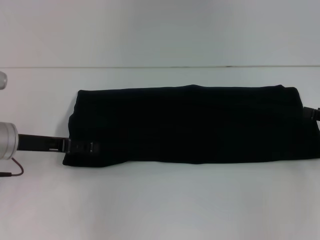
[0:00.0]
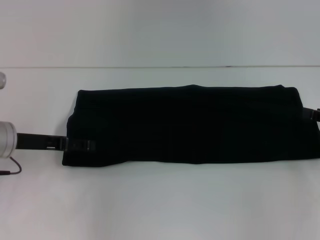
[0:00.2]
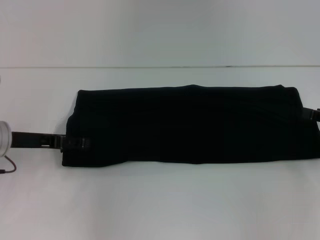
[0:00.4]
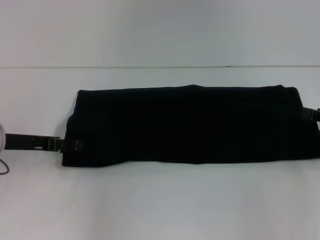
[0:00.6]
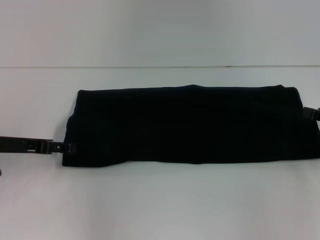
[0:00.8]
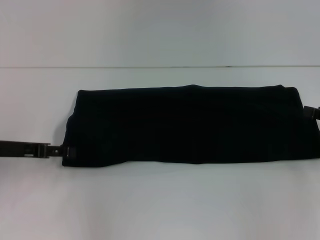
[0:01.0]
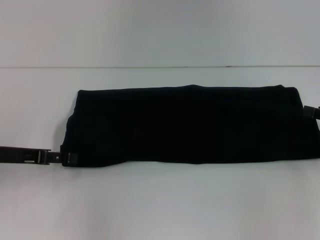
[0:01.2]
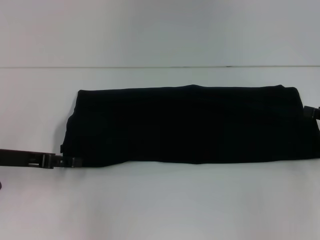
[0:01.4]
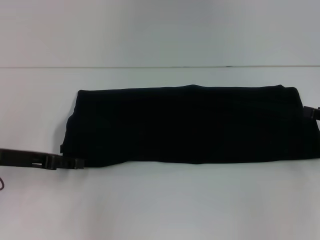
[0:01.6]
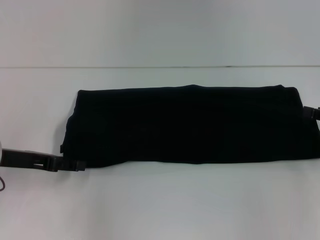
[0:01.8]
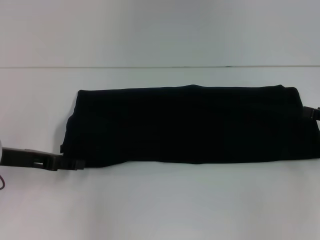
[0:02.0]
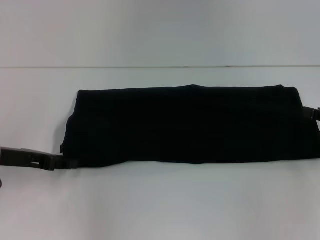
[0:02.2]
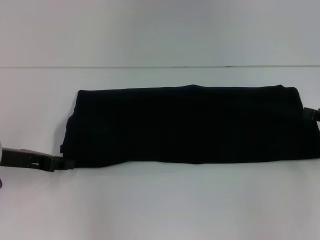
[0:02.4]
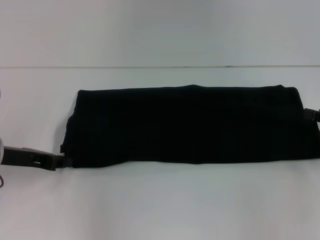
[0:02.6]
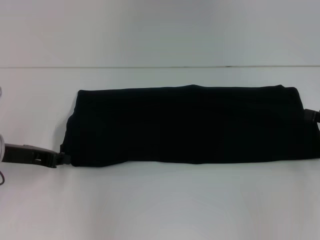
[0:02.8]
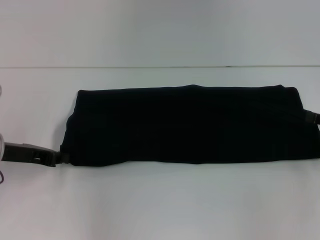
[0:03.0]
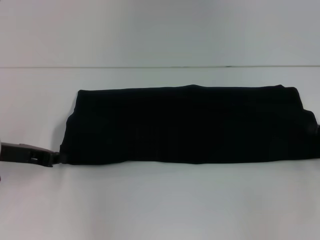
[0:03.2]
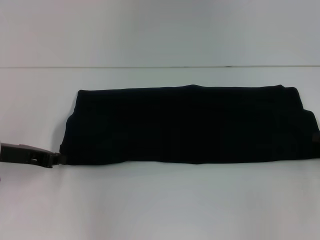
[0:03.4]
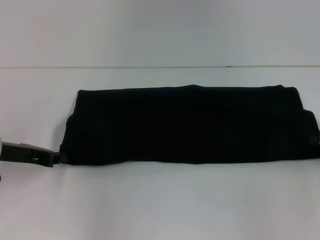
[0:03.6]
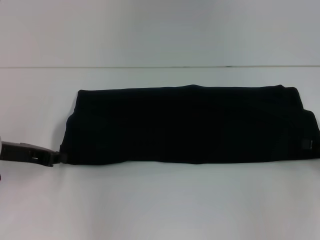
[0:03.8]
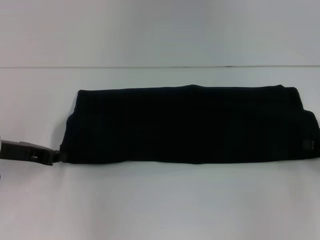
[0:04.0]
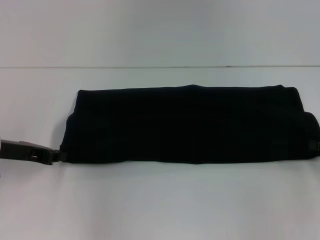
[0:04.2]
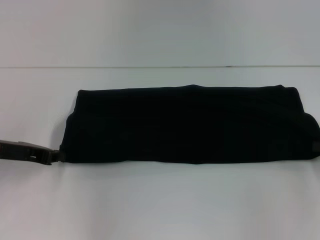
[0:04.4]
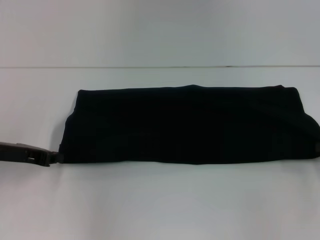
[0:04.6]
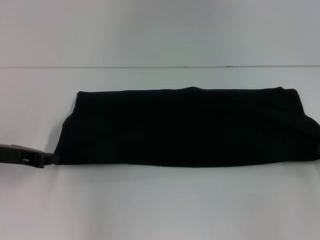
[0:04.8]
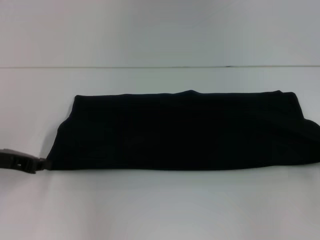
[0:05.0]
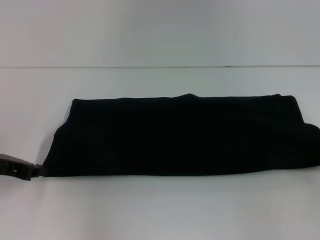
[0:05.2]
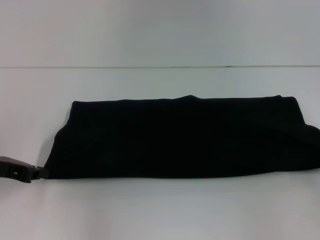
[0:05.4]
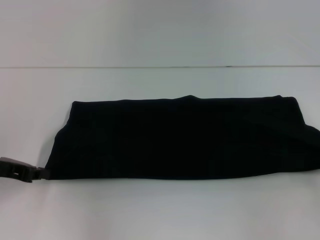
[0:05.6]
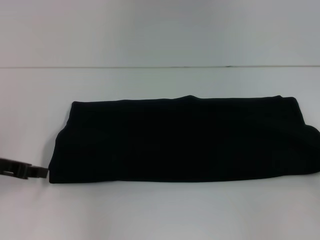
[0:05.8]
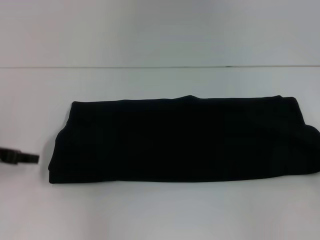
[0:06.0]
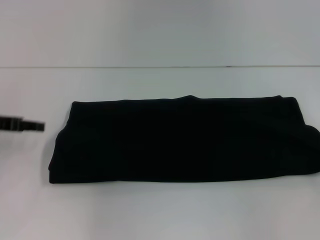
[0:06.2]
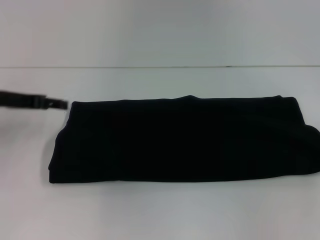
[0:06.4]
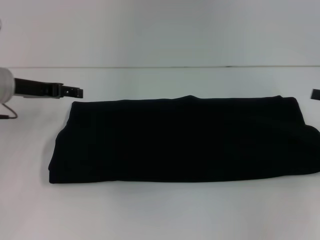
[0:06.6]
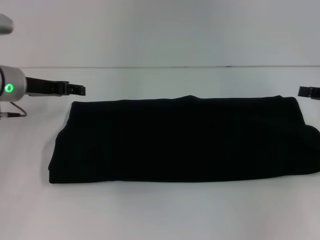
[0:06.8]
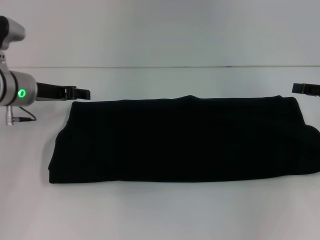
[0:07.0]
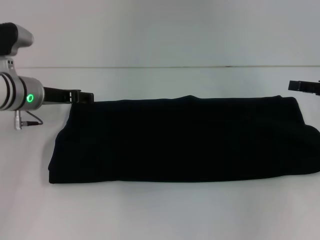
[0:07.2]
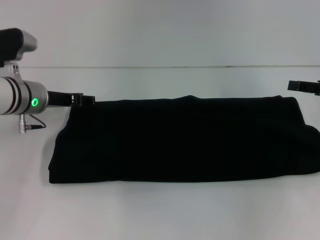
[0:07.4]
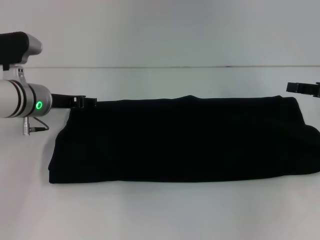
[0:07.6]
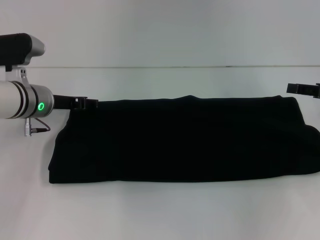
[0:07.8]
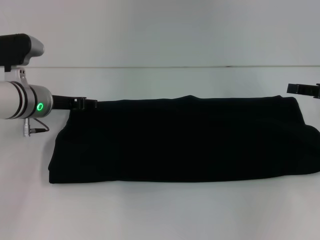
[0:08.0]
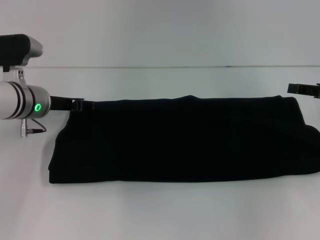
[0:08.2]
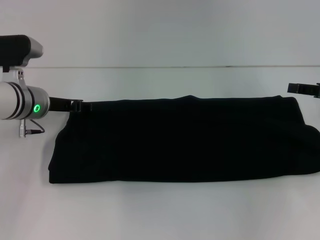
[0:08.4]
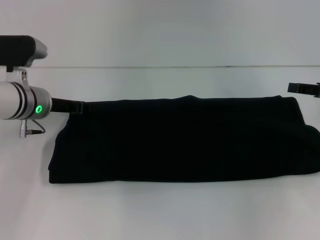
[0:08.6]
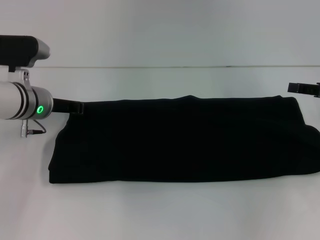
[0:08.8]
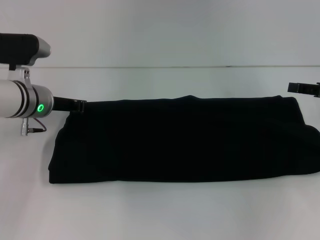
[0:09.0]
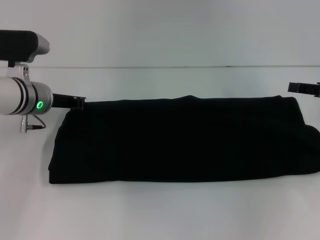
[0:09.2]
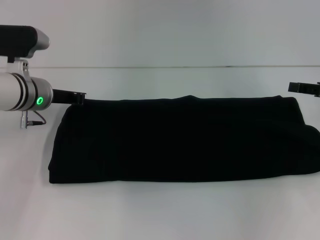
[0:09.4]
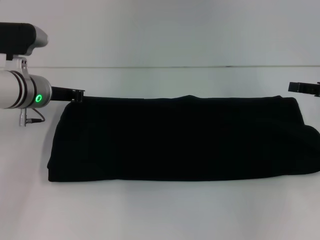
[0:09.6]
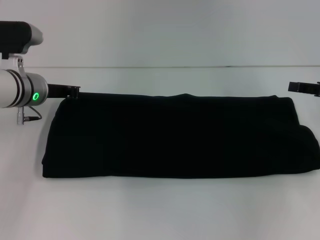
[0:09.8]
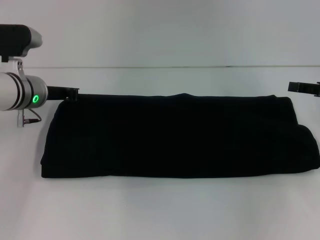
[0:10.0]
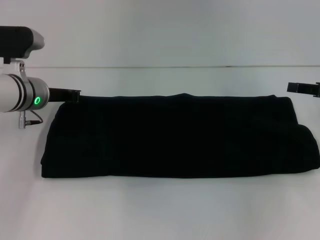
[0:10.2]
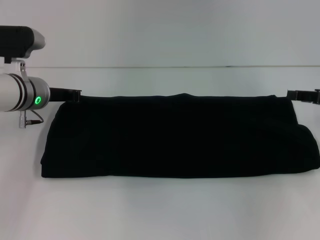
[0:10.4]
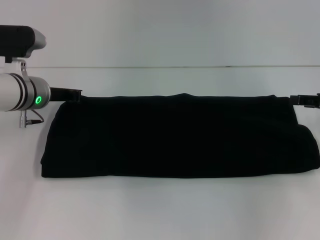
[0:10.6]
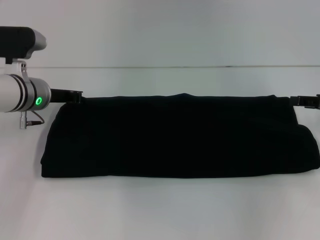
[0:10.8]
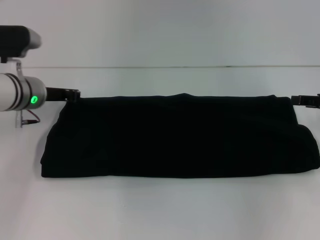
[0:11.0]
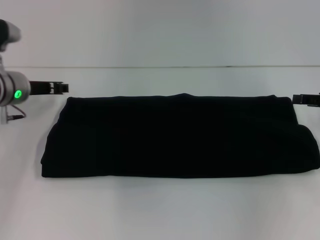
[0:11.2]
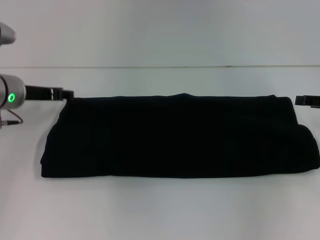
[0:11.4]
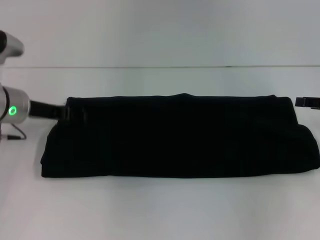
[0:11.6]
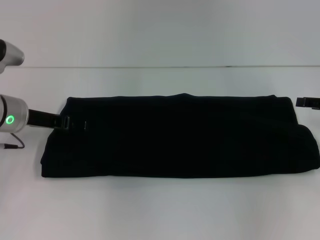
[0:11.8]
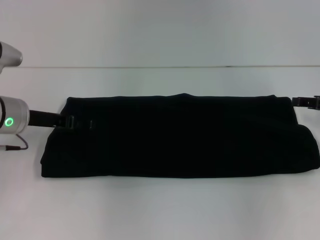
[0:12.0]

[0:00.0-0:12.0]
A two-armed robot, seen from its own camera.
0:00.0 to 0:01.6: There are only small adjustments of the grippers.
0:01.6 to 0:03.0: The left gripper closes.
0:04.4 to 0:06.0: The right gripper changes place by some 5 cm.
0:06.0 to 0:07.6: The left gripper moves to the right and forward, some 15 cm, and opens up. Meanwhile the right gripper heads forward and to the left, covering roughly 10 cm, and opens.
0:07.6 to 0:09.0: The left gripper closes.
0:09.0 to 0:10.4: The left gripper closes its fingers.
0:10.4 to 0:12.0: The left gripper is displaced backward by approximately 5 cm, and opens up.

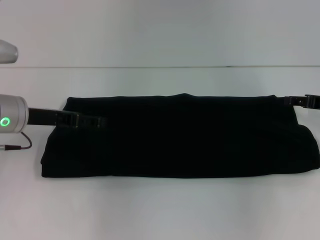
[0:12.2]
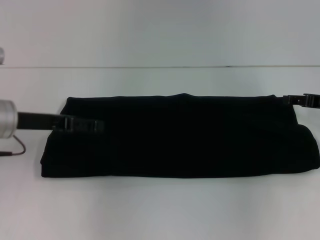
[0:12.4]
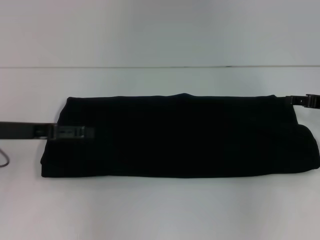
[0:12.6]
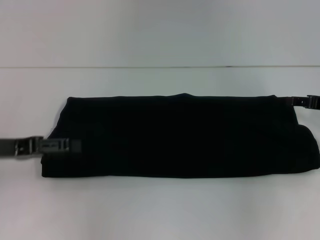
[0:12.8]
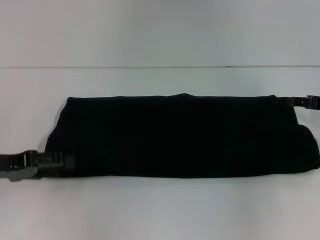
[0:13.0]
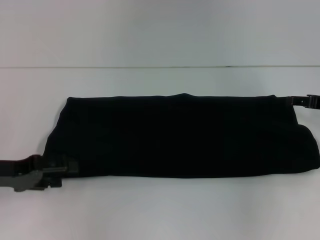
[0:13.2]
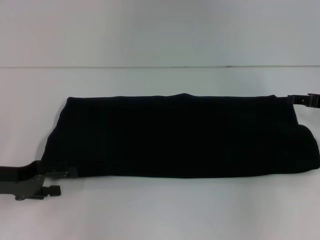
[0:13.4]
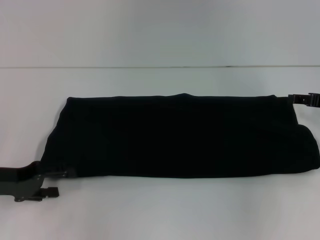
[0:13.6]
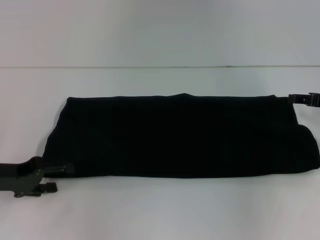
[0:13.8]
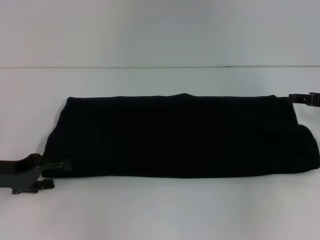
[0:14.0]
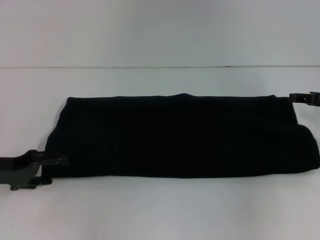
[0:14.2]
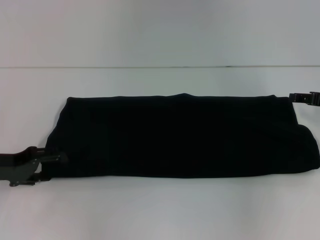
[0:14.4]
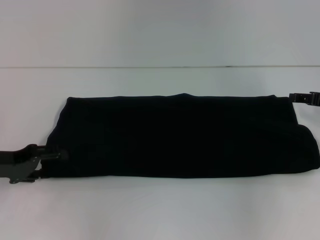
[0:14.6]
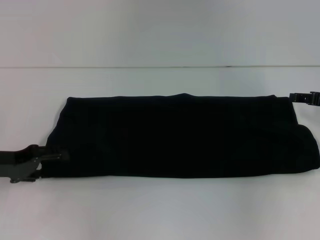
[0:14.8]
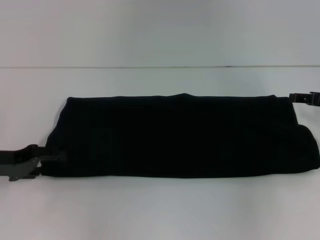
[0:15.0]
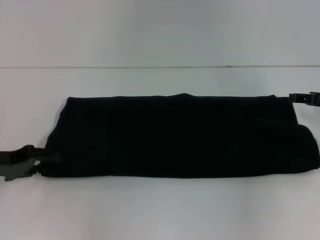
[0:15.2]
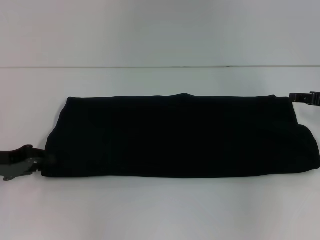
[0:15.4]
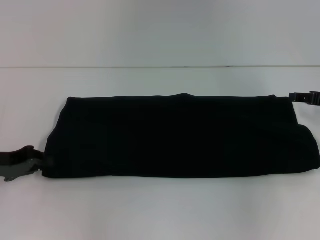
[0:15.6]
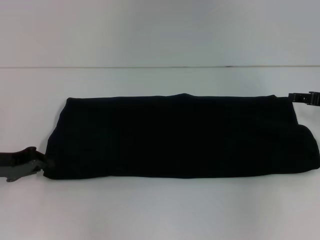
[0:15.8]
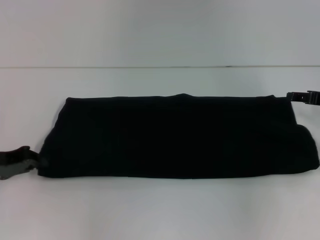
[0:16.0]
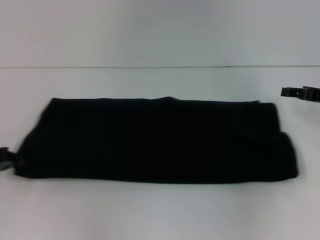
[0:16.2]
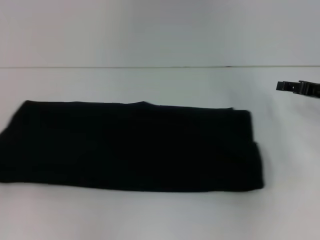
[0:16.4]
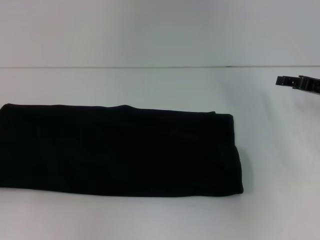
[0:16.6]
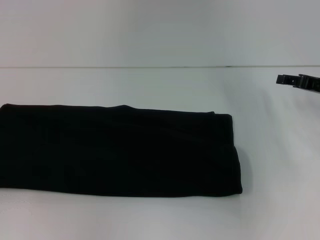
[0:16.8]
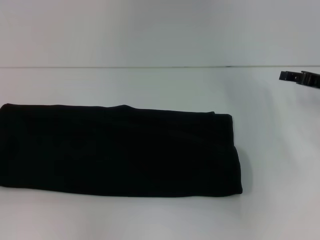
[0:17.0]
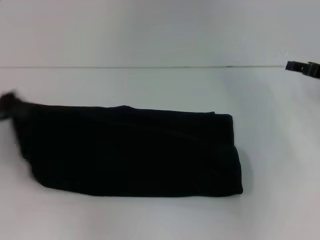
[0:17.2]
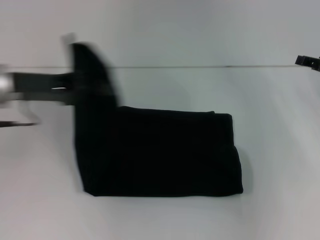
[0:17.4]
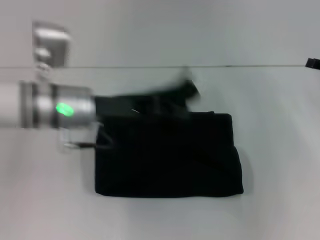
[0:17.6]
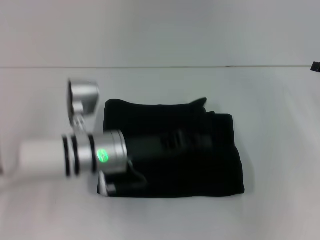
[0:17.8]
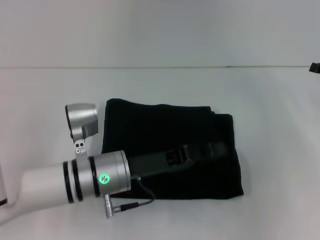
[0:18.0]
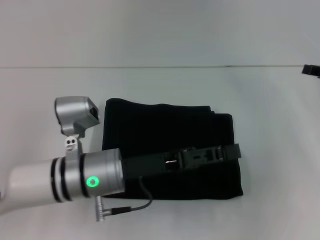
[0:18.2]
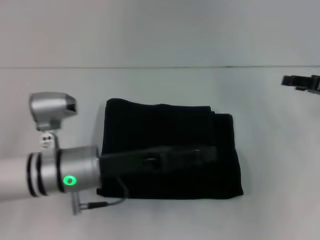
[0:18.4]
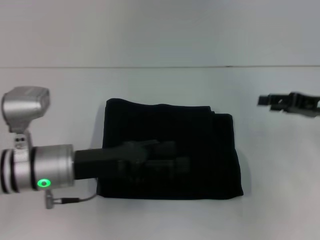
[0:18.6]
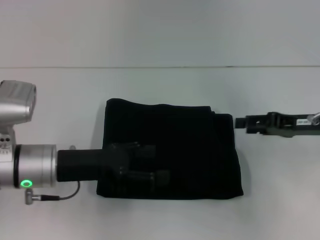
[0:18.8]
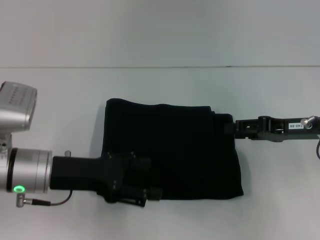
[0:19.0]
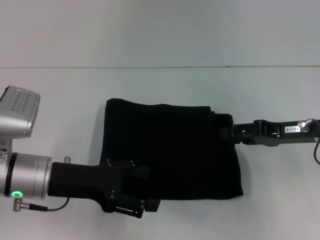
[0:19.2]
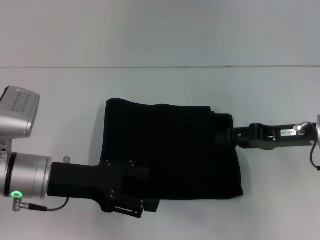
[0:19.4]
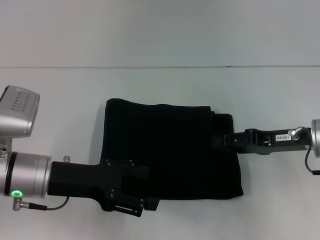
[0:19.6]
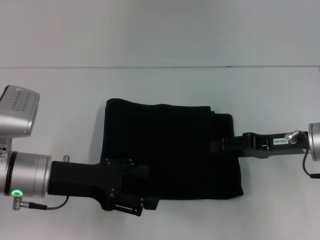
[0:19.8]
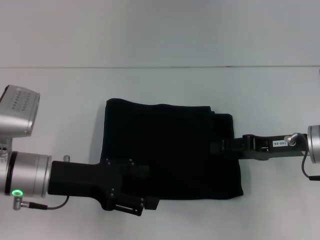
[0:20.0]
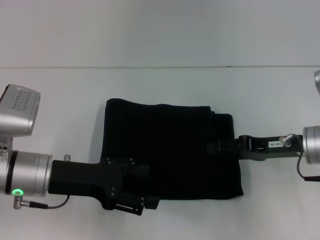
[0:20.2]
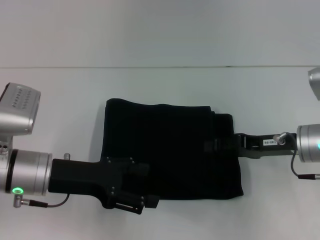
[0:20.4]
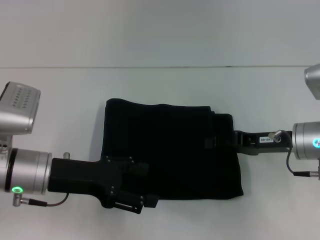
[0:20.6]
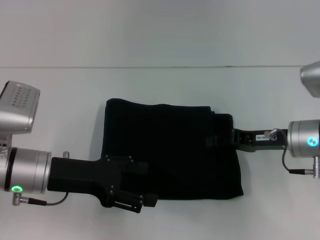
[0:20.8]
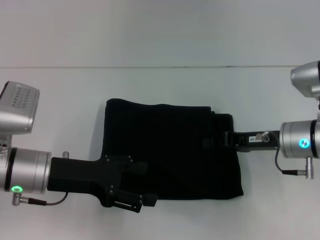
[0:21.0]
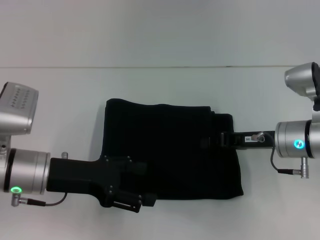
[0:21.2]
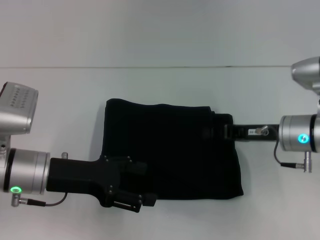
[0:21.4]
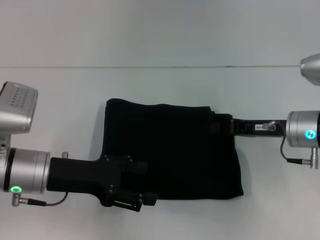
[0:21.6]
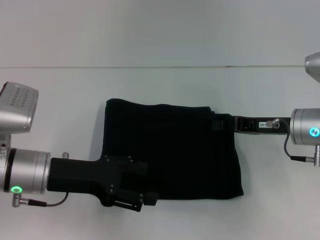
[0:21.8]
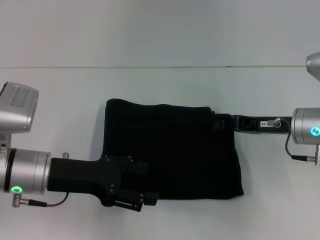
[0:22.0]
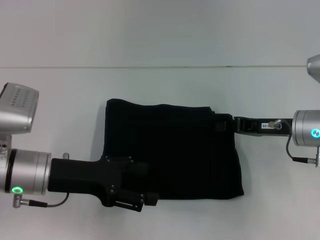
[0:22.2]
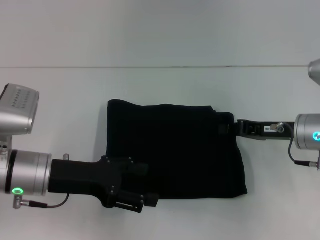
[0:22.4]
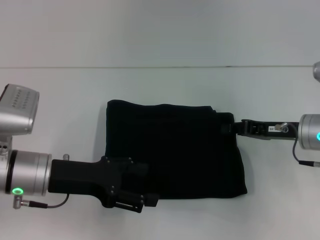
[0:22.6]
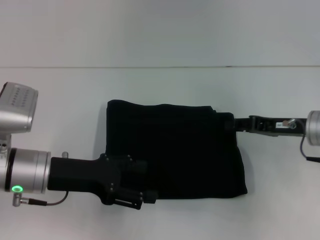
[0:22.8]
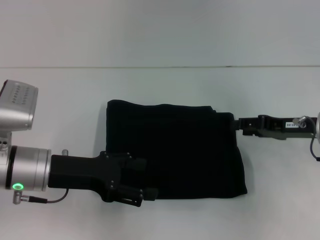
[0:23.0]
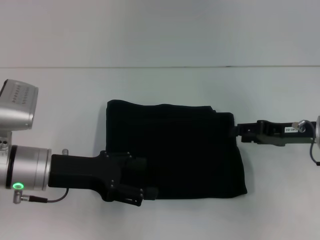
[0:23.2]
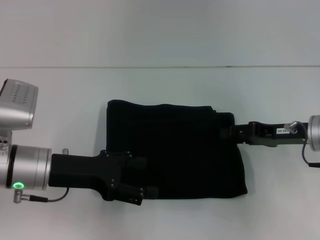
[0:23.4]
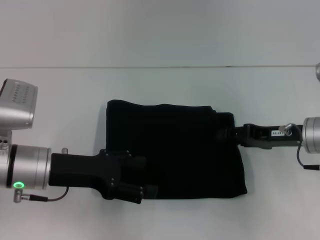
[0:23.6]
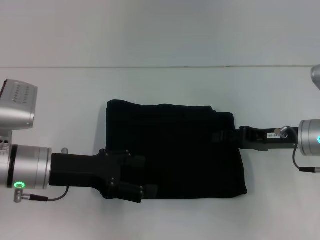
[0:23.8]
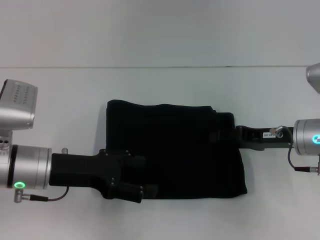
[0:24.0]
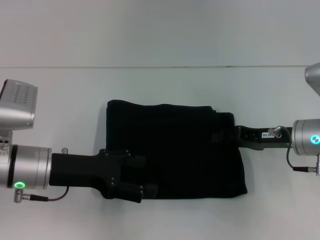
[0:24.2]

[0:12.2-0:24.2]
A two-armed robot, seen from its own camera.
Step, 0:12.2 to 0:18.2: Fold the clothes with your left hand.
0:12.2 to 0:13.8: The left gripper travels backward and to the left by some 10 cm.
0:13.8 to 0:15.2: The grippers stay close to where they were, moving slightly.
0:15.2 to 0:16.6: The left gripper goes about 10 cm to the left, and closes.
0:16.6 to 0:18.2: The left gripper heads to the right, covering some 30 cm.
0:18.2 to 0:19.8: Both grippers travel together to the left, some 10 cm. The left gripper opens its fingers.
0:19.8 to 0:21.2: The right gripper closes its fingers.
0:21.2 to 0:22.6: There are only small adjustments of the grippers.
0:22.6 to 0:24.2: The right gripper opens its fingers.
